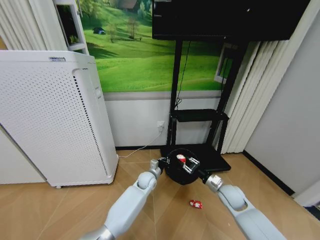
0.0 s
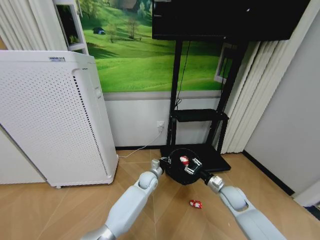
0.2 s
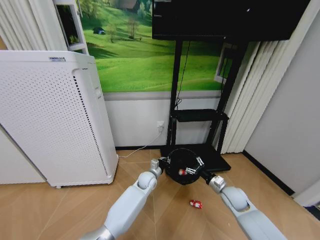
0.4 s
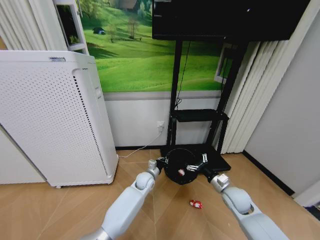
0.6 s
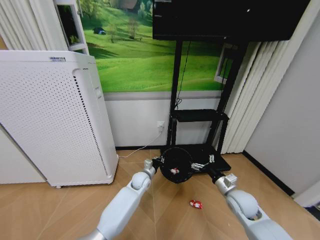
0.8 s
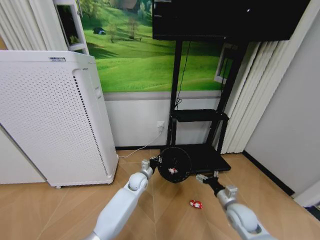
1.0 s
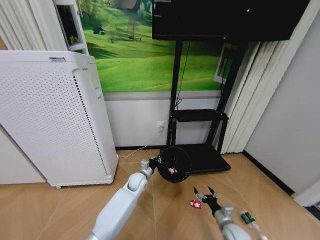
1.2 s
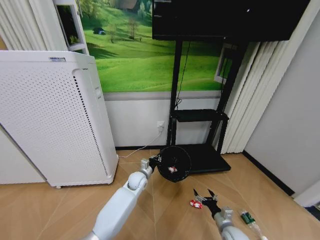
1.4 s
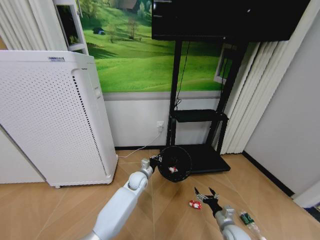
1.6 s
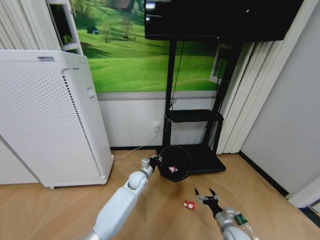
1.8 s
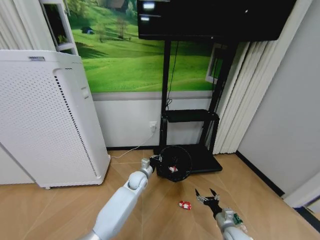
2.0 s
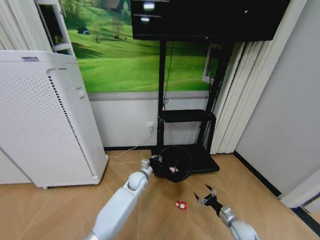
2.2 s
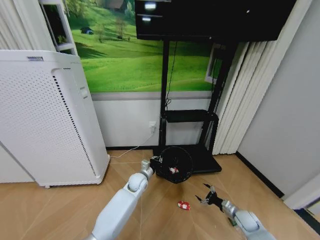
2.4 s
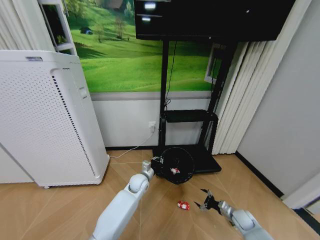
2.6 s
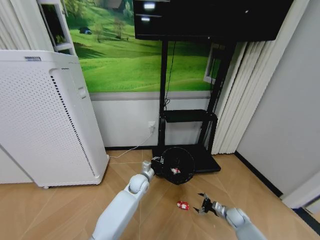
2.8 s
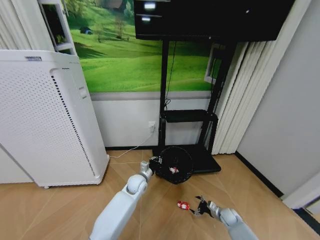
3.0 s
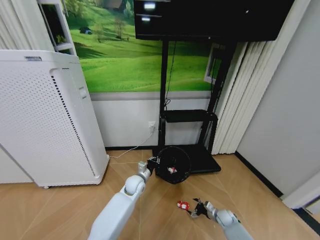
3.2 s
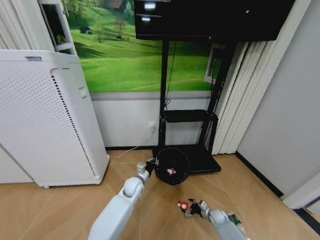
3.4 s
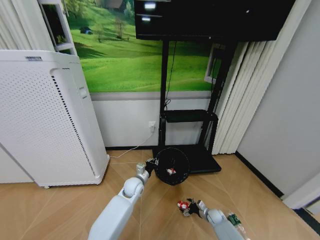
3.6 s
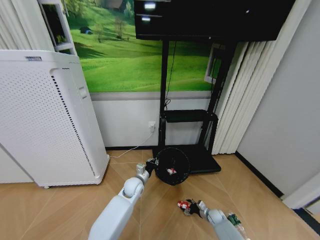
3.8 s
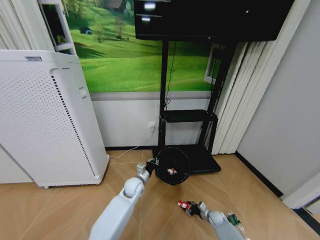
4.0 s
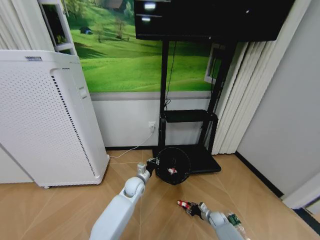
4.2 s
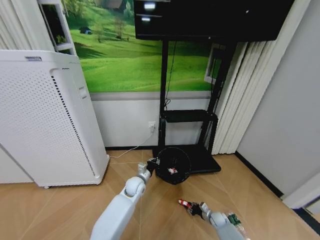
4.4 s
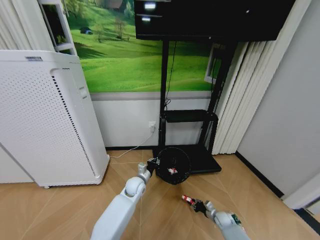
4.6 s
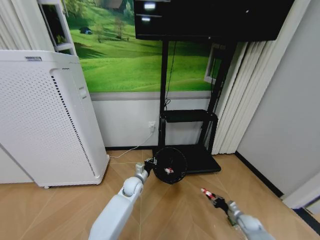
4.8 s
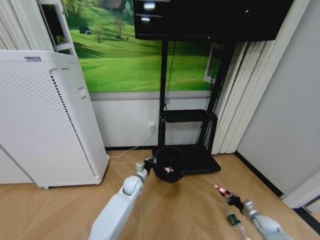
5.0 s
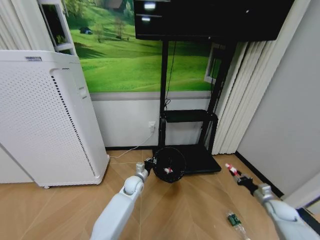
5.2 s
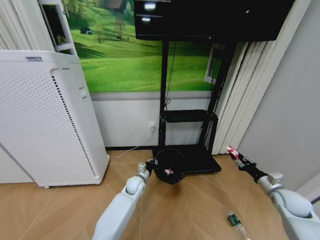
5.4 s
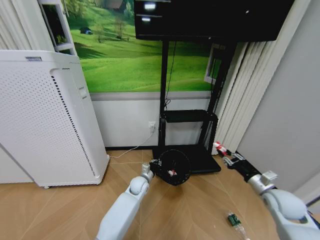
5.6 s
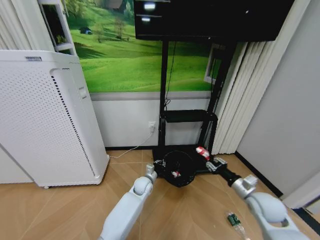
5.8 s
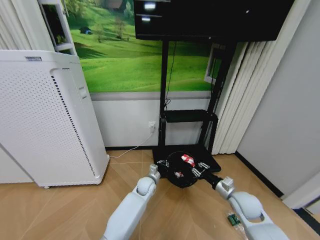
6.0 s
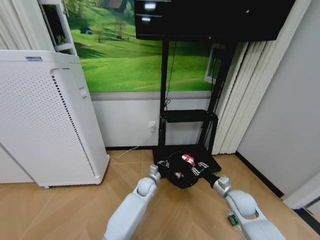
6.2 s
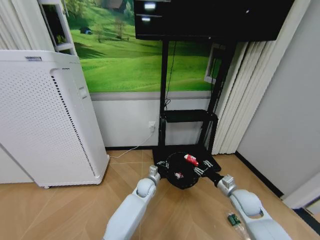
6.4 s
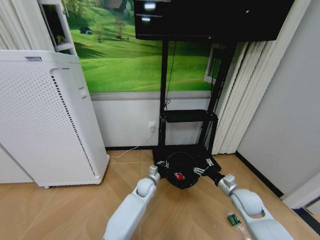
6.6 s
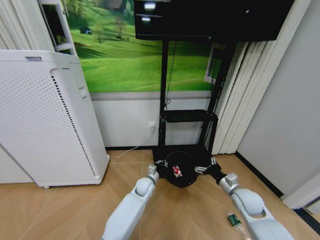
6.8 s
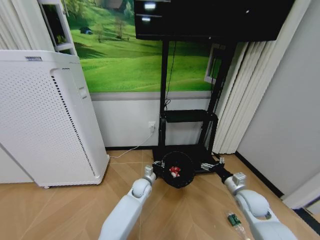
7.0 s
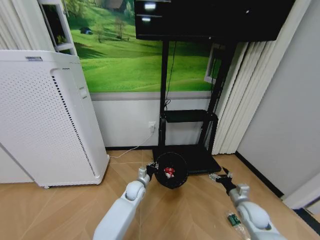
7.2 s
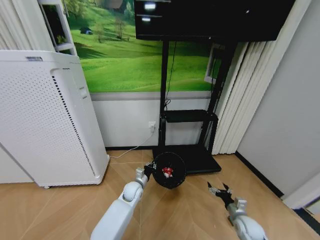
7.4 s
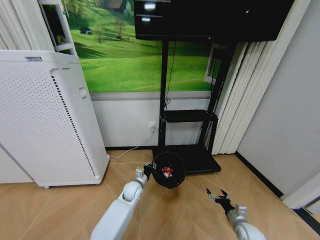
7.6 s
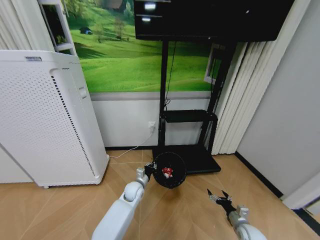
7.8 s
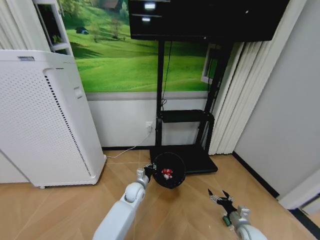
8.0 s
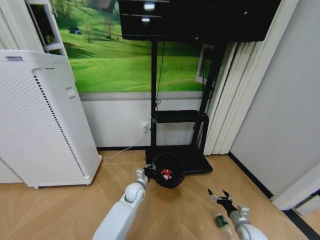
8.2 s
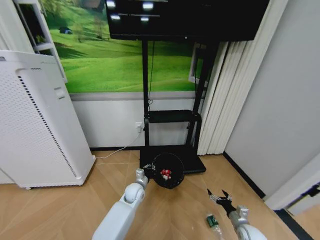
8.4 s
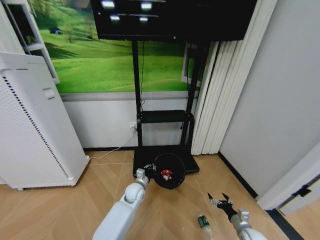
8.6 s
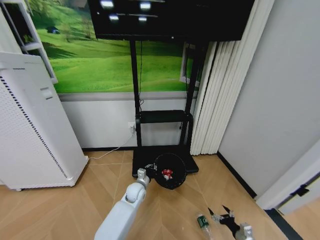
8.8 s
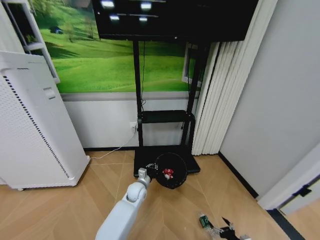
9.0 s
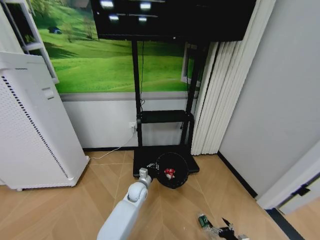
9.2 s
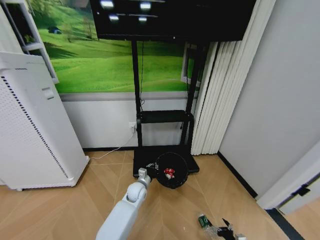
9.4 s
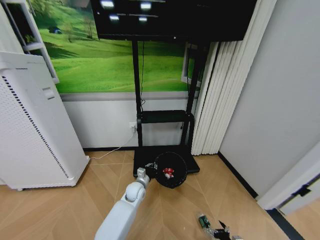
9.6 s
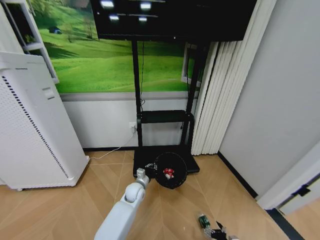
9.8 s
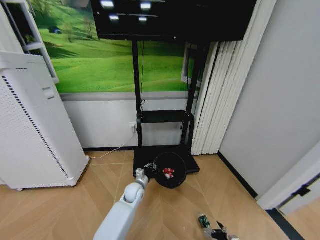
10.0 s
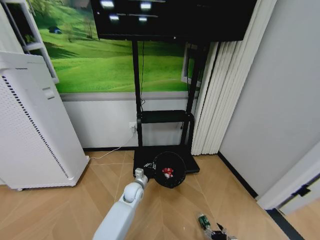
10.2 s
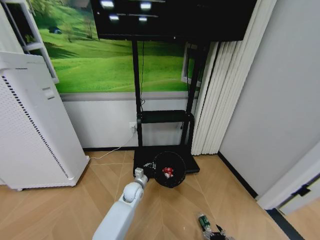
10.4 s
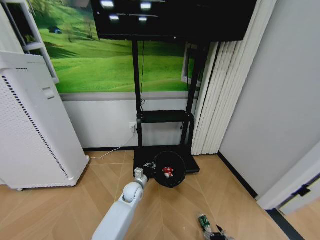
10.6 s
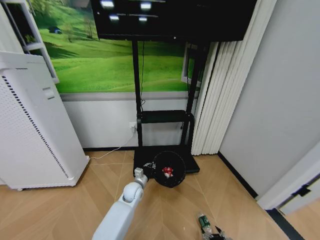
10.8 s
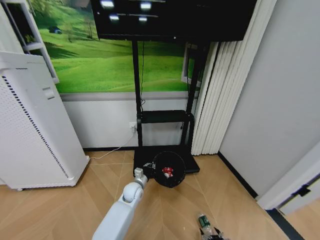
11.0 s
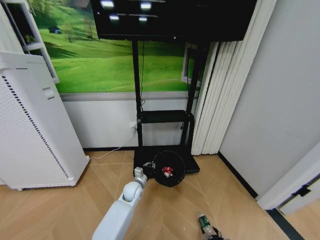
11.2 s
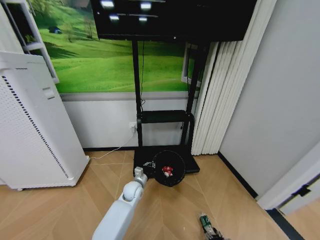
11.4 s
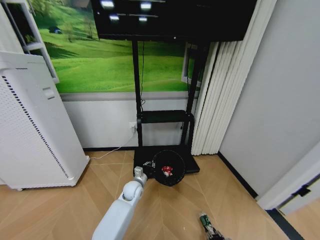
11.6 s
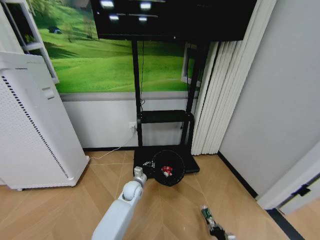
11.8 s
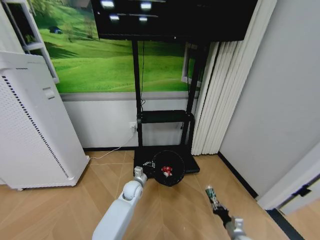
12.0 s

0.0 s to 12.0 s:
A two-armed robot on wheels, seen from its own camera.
Task of the whole recording: Pick up the trash bin and place the garbage on the floor into it.
0.0 to 1.6 s: The right gripper is displaced downward and backward by roughly 20 cm, and opens.
1.6 to 3.0 s: The right gripper heads forward, to the right and downward, covering some 15 cm.
3.0 to 4.4 s: The right gripper heads downward, covering approximately 5 cm, and closes.
4.4 to 6.0 s: The right gripper goes roughly 30 cm upward. Meanwhile the left gripper moves to the right, roughly 5 cm.
6.0 to 7.6 s: The left gripper heads to the left, covering approximately 5 cm. Meanwhile the right gripper goes roughly 15 cm downward, and opens its fingers.
7.6 to 9.0 s: The right gripper heads backward and downward, covering about 10 cm.
9.0 to 10.4 s: The right gripper shifts roughly 5 cm downward.
10.4 to 12.0 s: The right gripper heads upward and forward, covering some 10 cm, and closes its fingers.

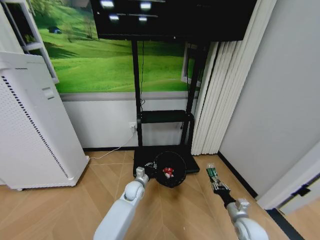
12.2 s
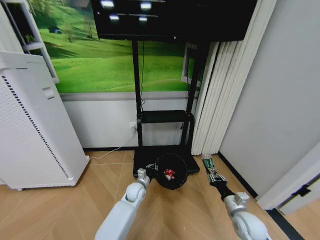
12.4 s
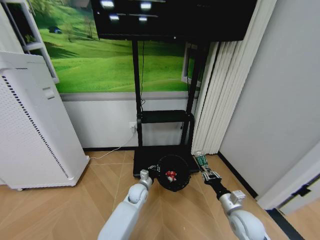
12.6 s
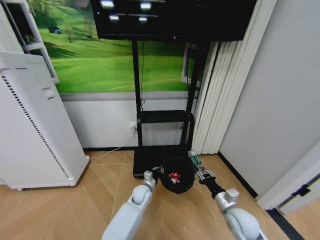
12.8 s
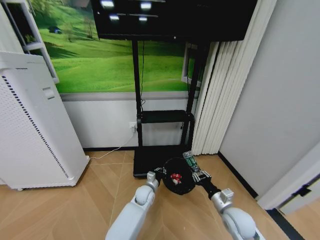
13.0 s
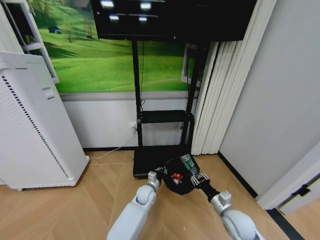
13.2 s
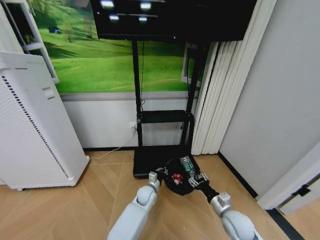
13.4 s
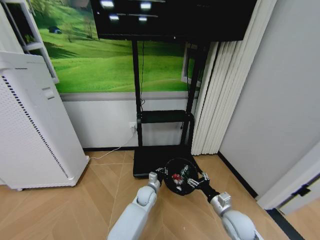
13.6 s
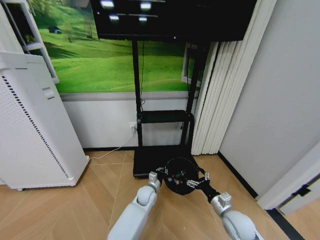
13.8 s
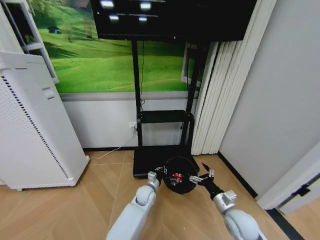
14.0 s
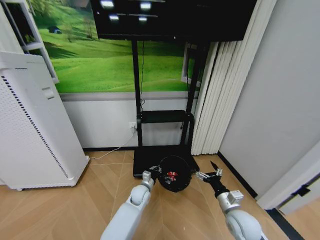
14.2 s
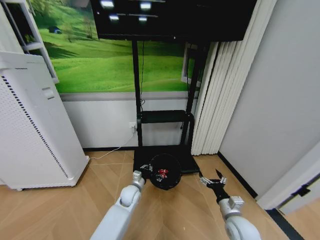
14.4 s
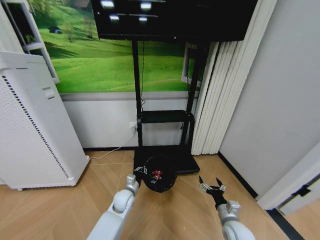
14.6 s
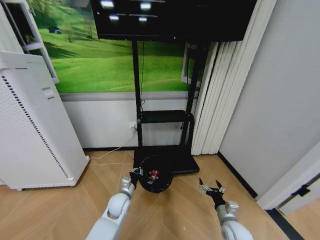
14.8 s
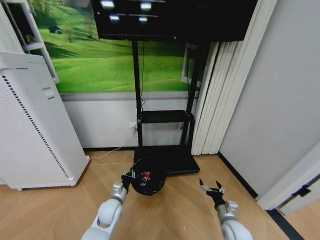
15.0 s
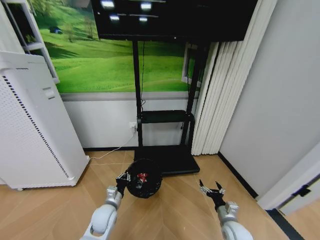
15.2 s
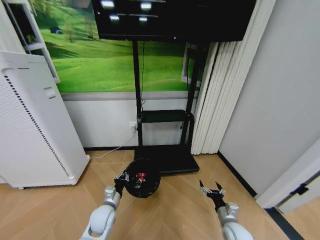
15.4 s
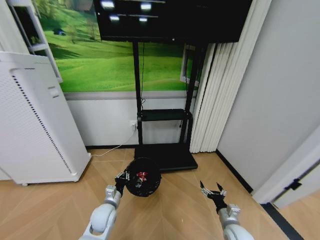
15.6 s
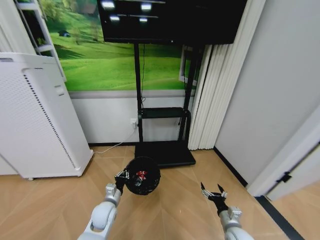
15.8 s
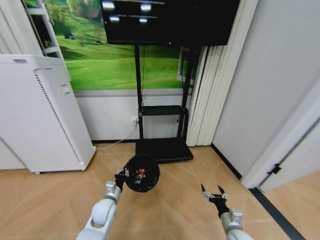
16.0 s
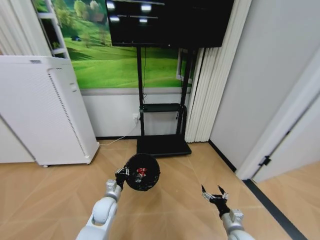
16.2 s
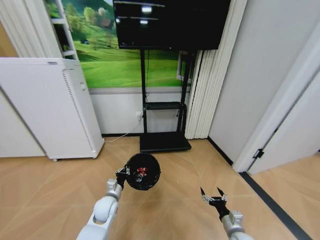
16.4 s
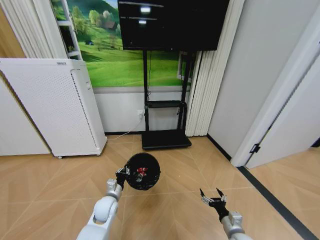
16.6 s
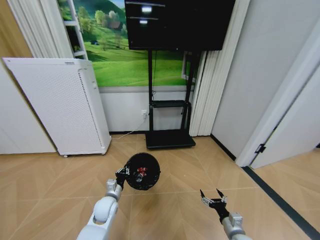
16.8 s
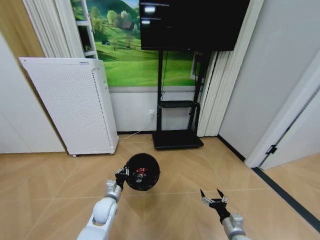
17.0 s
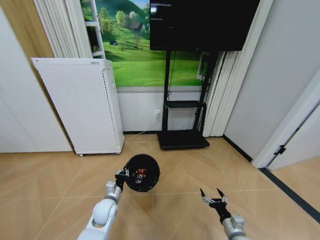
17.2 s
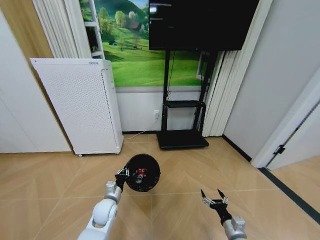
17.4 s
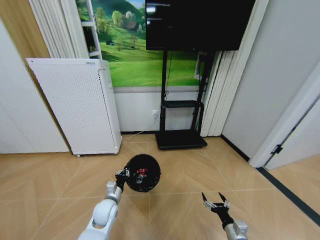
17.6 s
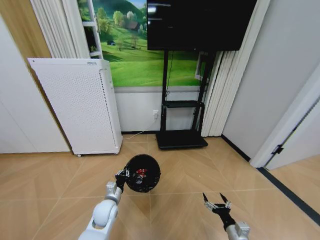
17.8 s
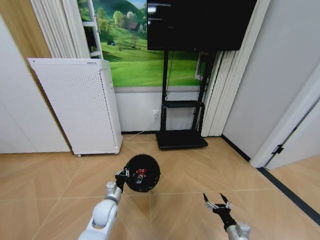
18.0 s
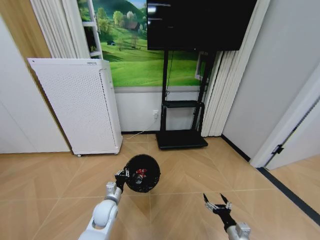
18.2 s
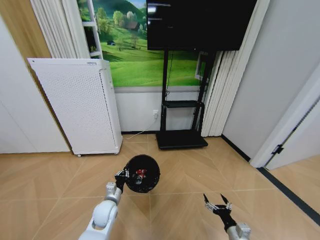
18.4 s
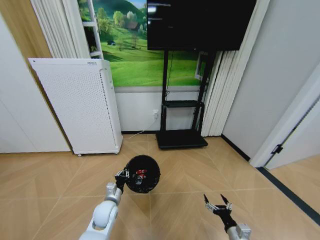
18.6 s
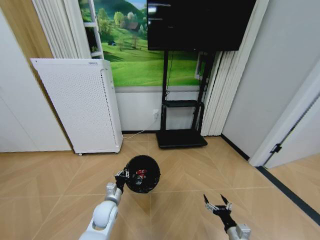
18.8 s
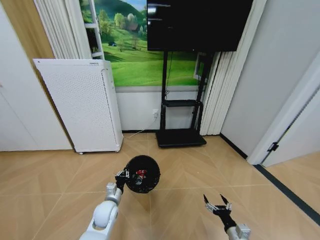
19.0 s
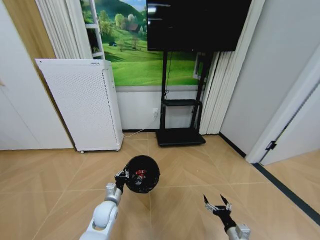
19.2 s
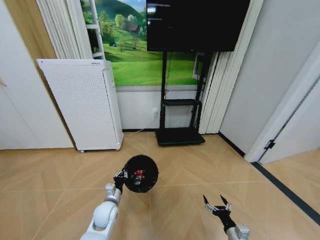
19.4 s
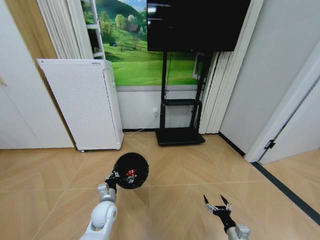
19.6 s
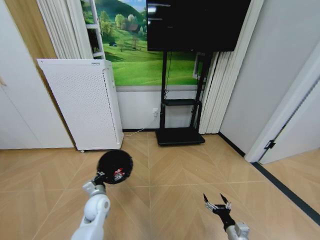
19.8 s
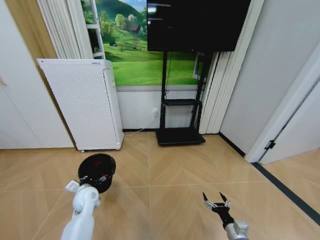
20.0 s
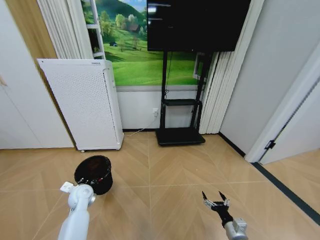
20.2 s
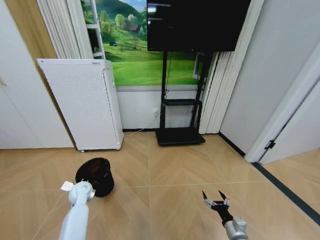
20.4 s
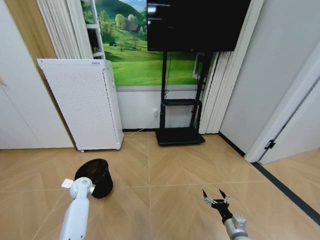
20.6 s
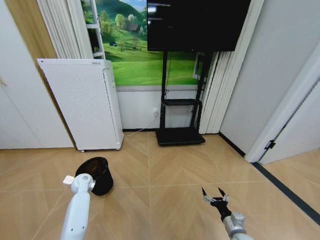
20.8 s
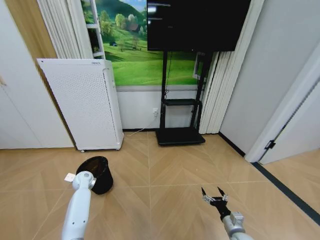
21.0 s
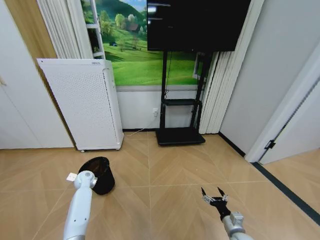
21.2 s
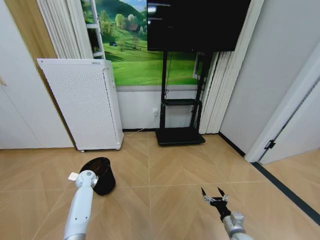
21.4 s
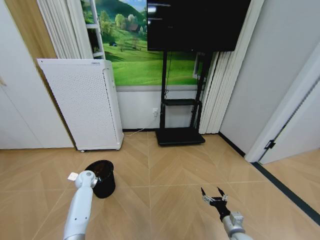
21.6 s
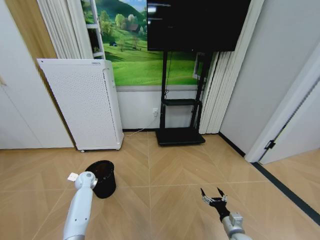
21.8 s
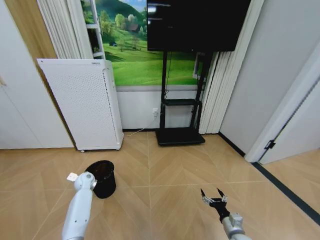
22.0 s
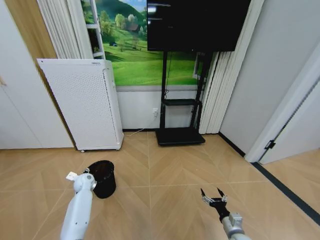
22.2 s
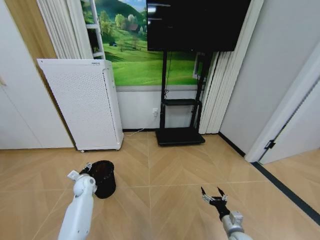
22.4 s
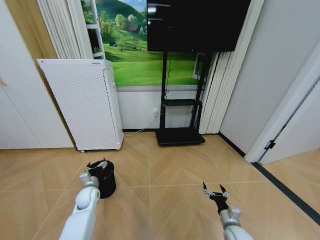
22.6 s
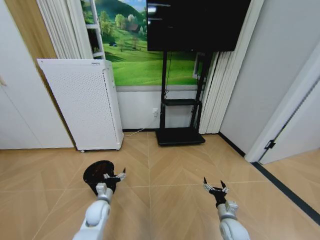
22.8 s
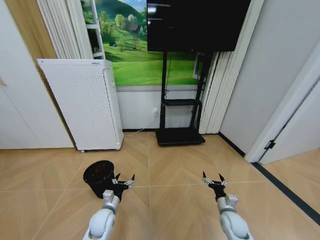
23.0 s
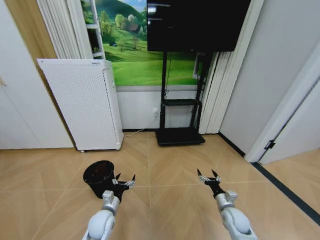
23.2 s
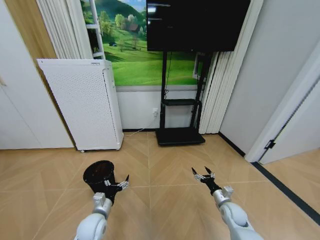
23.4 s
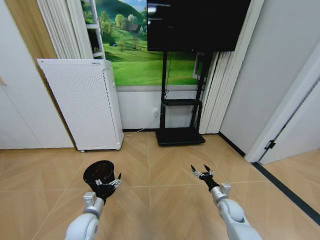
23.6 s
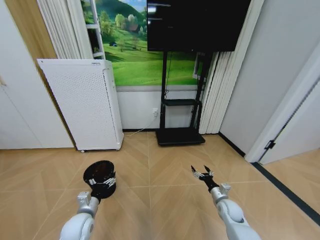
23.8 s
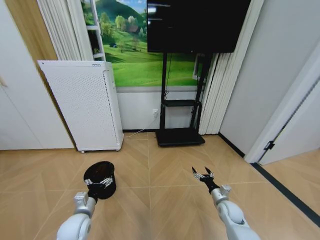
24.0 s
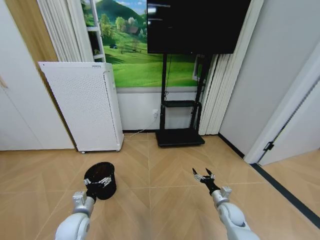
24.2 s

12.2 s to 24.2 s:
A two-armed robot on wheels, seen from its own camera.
Task of the whole recording: Pick up the trash bin and place the garbage on the floor into it.
12.2 to 13.8 s: The right gripper shifts roughly 10 cm to the left and upward, and opens up; the left gripper heads to the right, covering about 5 cm.
13.8 to 15.2 s: The right gripper shifts some 5 cm downward. Meanwhile the left gripper heads to the left and backward, covering roughly 20 cm.
18.2 to 19.8 s: The left gripper shifts by approximately 5 cm.
19.8 to 21.2 s: The left gripper travels forward and to the left by approximately 20 cm.
21.2 to 22.6 s: The left gripper travels backward and to the right by roughly 10 cm, and opens its fingers.
22.6 to 24.2 s: The right gripper shifts about 10 cm forward. The left gripper goes some 15 cm backward and upward.
